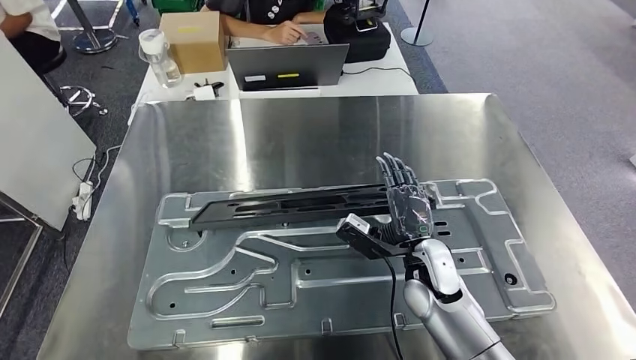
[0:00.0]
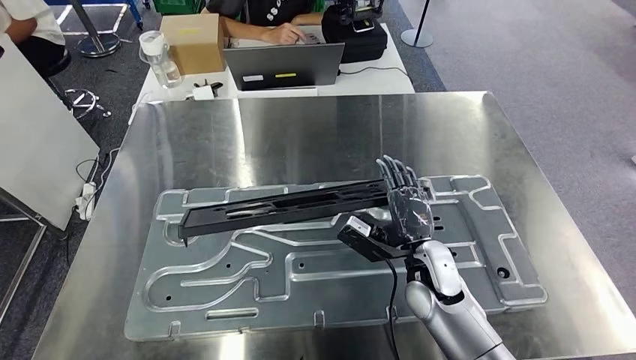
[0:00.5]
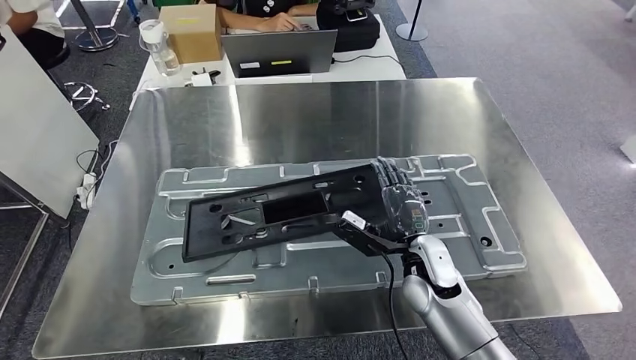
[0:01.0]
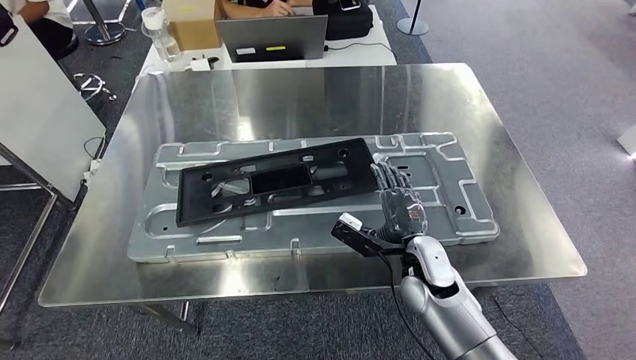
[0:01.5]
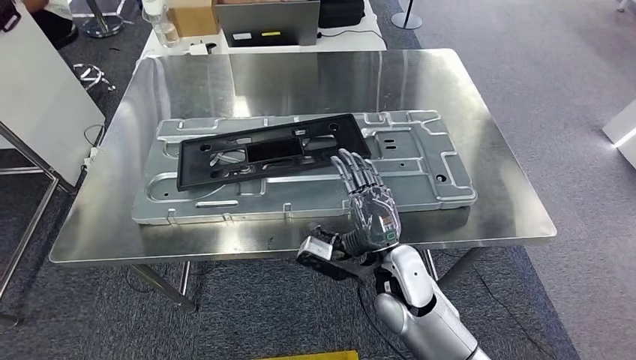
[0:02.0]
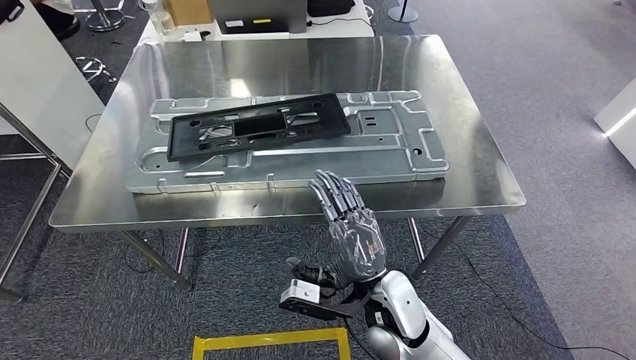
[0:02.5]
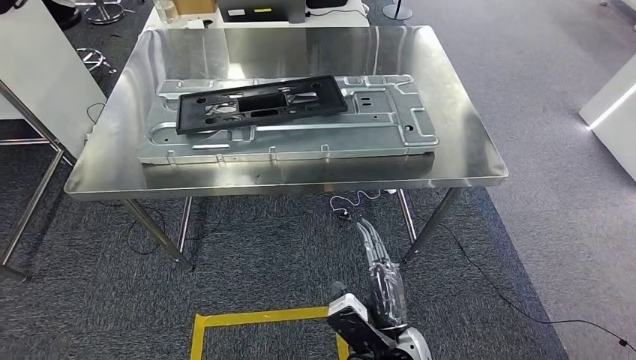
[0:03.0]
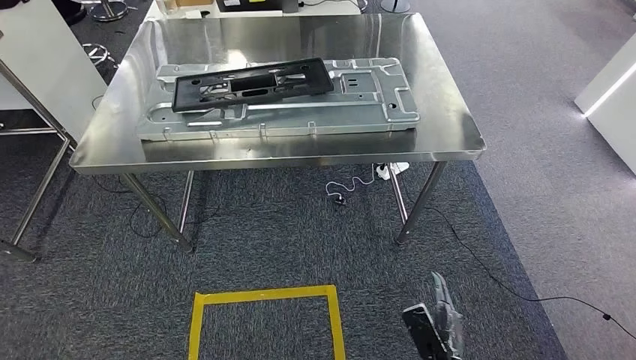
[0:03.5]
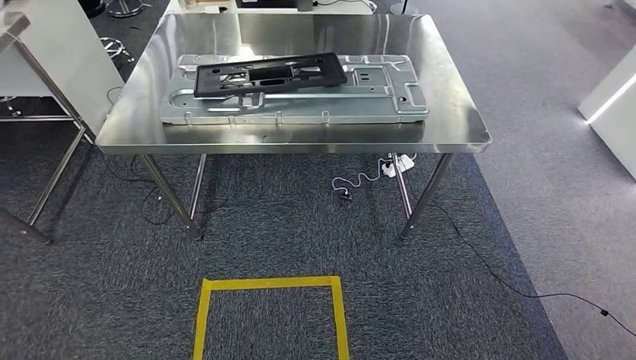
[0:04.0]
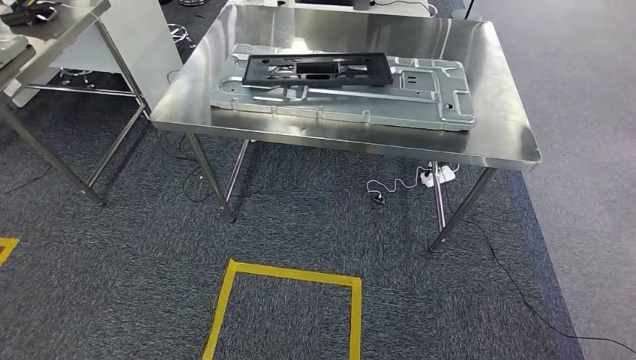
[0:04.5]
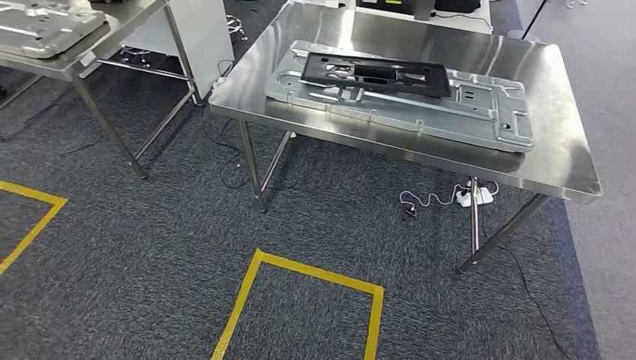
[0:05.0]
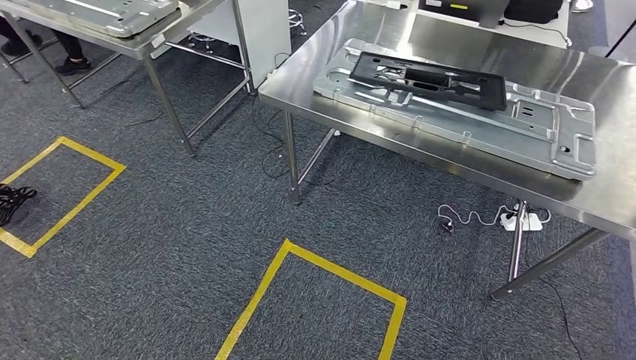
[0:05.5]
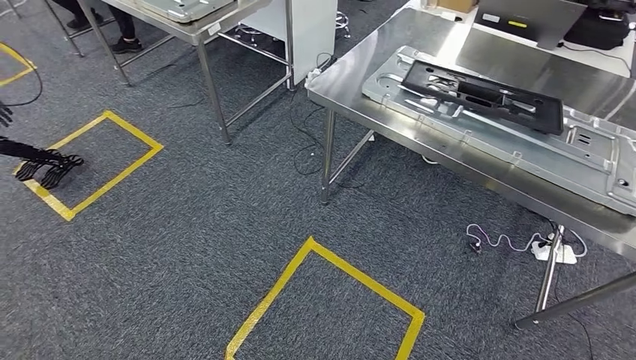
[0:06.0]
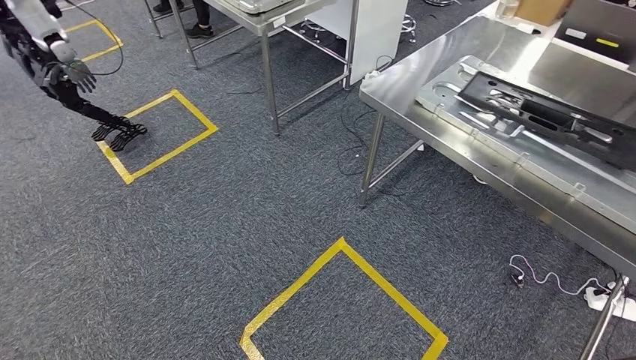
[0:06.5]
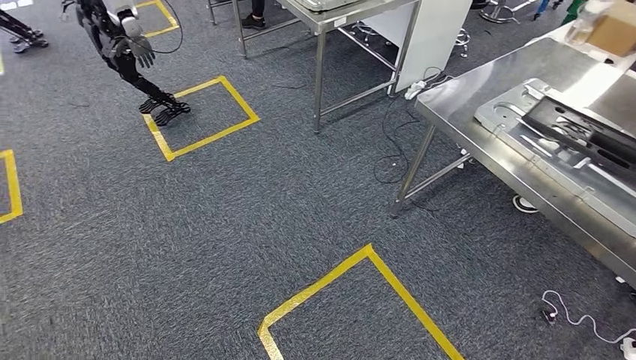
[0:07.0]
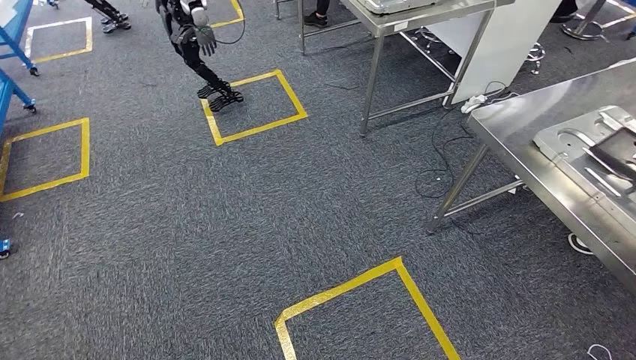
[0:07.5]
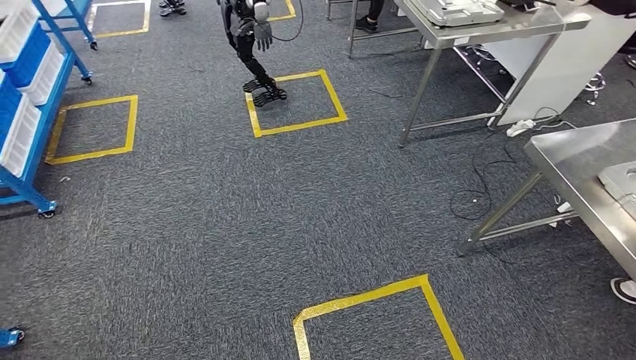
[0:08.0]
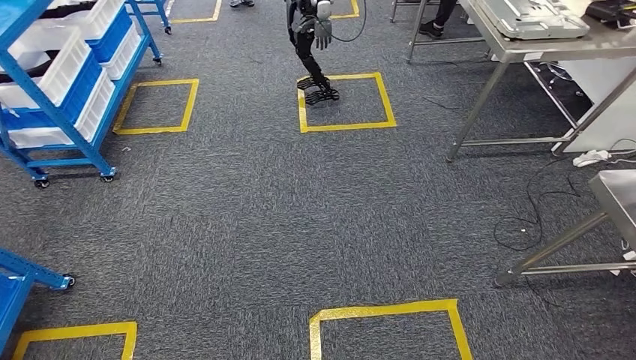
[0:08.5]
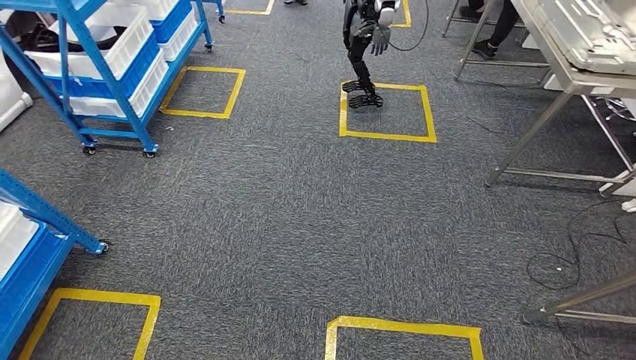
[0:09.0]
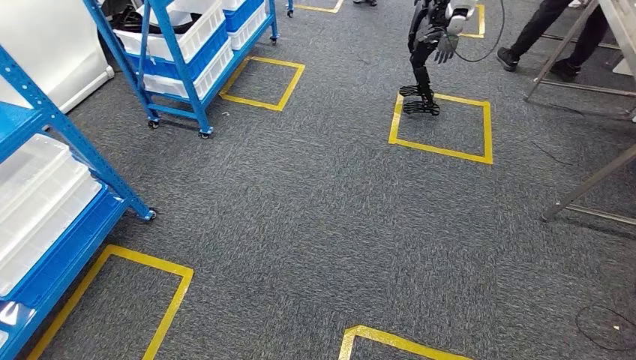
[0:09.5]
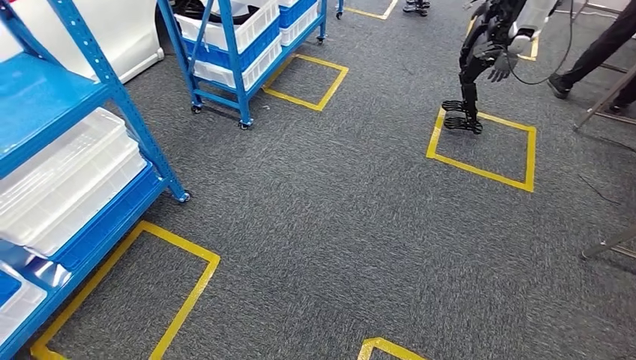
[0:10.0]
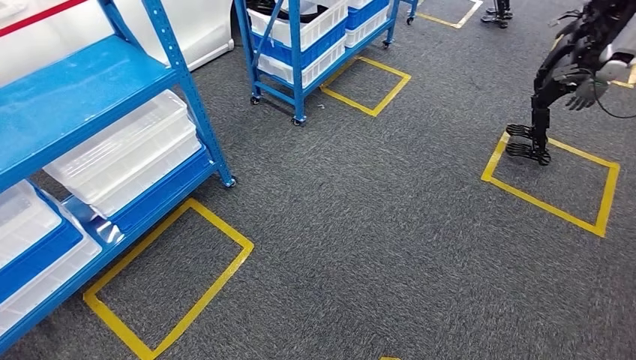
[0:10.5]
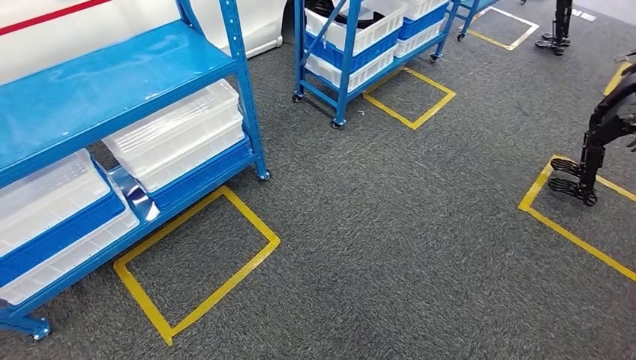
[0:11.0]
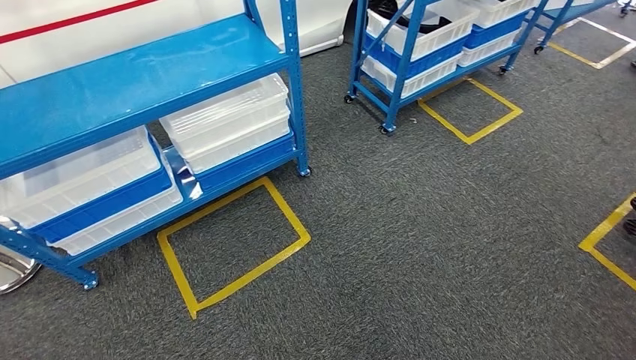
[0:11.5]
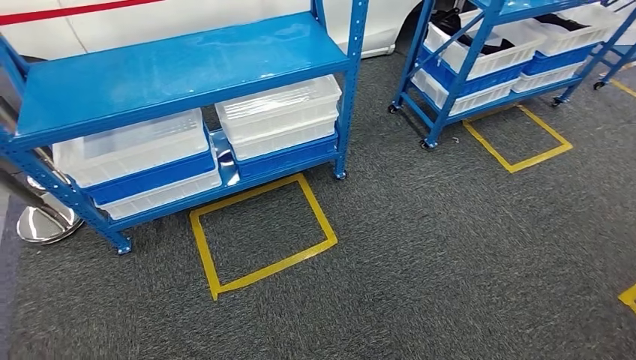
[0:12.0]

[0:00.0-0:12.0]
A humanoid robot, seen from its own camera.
Step, 0:00.0 to 0:04.5: Insert the large material into the corresponding slot on the workbench.

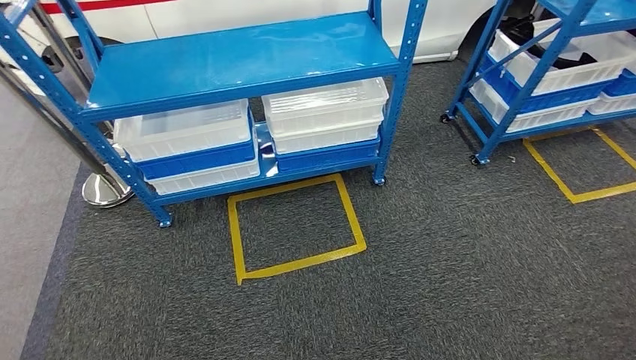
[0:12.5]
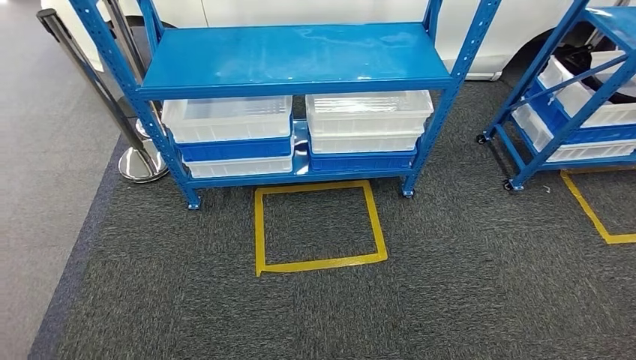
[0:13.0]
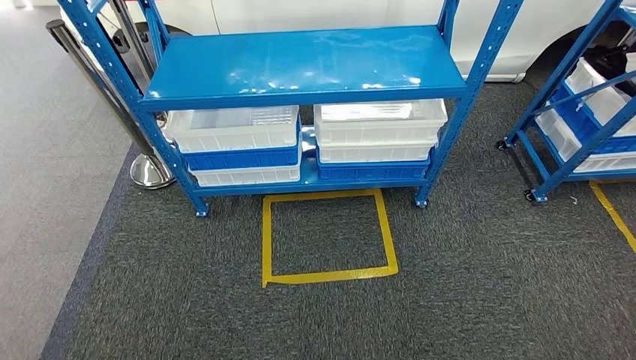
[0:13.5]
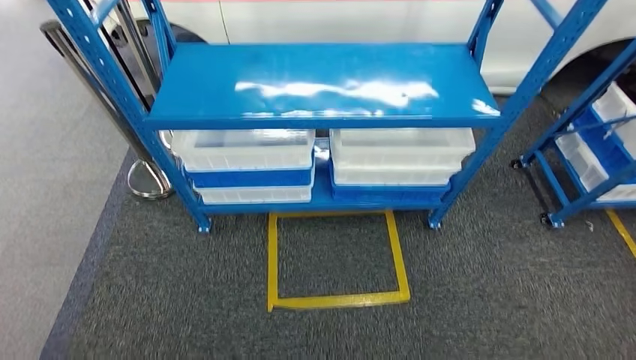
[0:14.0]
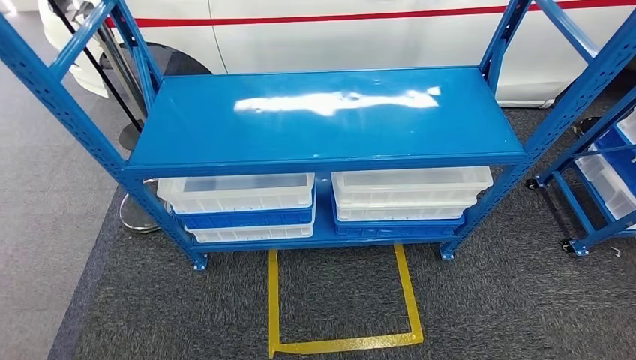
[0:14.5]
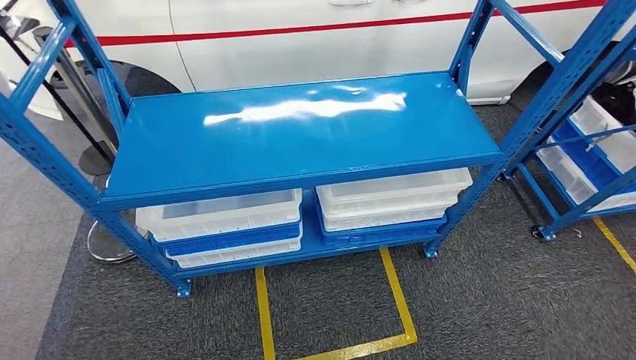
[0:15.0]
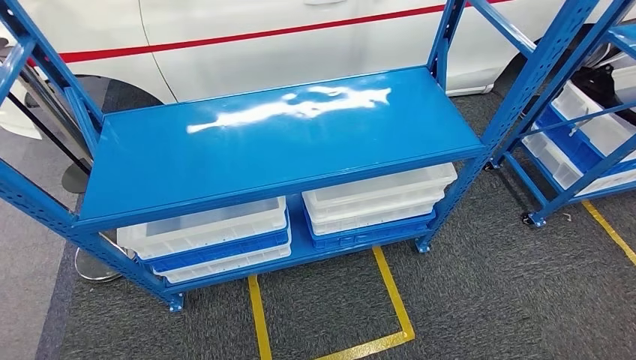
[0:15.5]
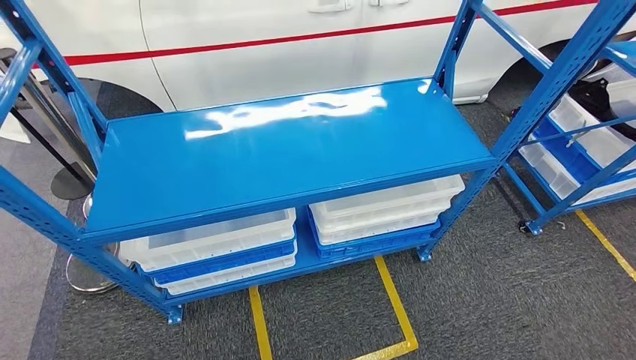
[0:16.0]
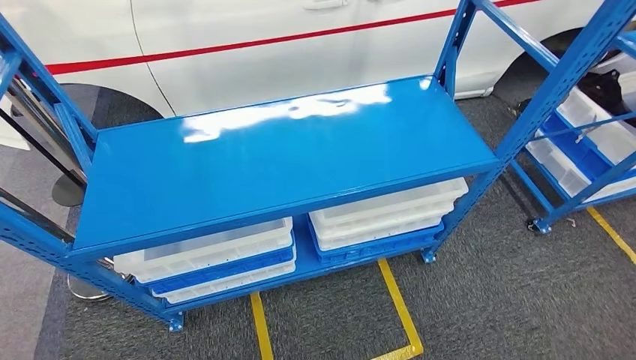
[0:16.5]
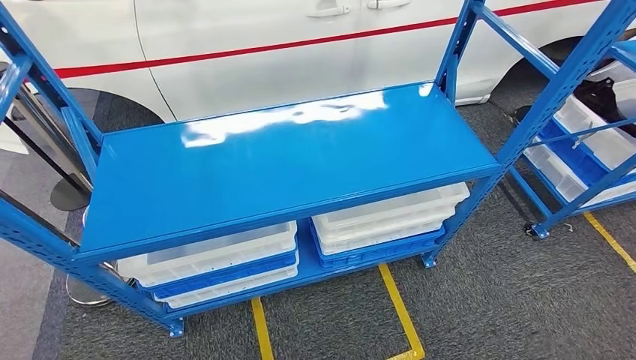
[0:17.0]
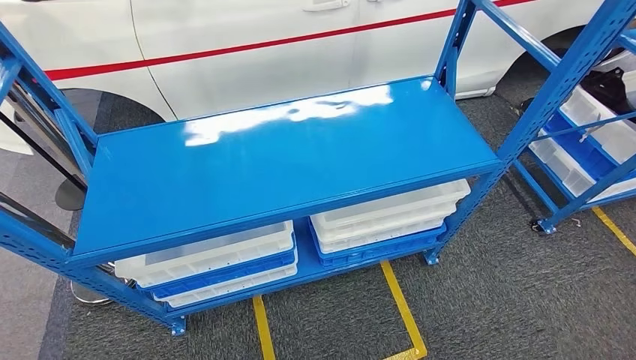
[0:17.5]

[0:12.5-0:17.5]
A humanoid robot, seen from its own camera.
Step, 0:12.5 to 0:17.5: Move to the initial position of the shelf.
